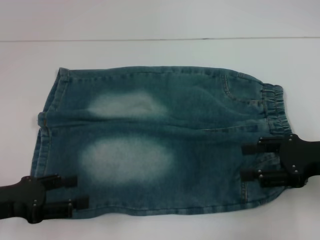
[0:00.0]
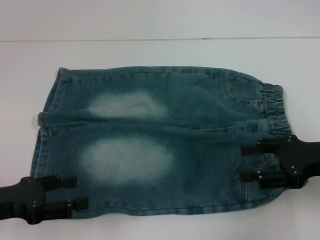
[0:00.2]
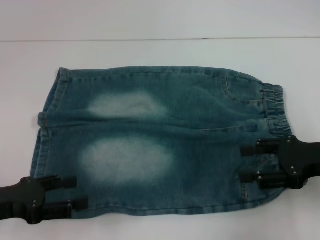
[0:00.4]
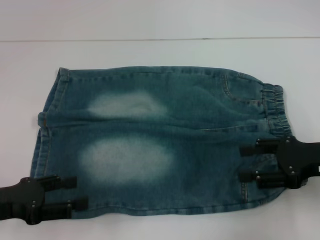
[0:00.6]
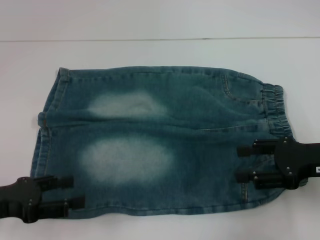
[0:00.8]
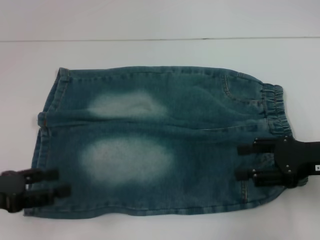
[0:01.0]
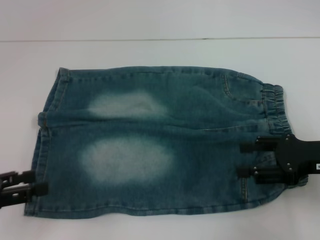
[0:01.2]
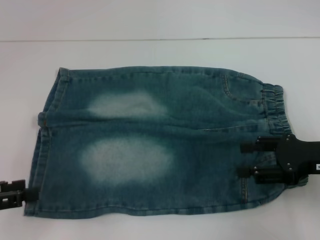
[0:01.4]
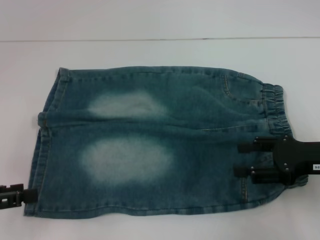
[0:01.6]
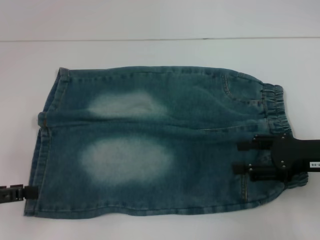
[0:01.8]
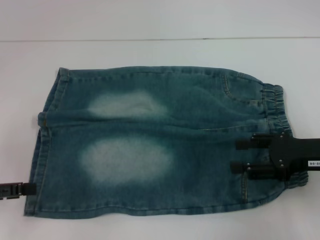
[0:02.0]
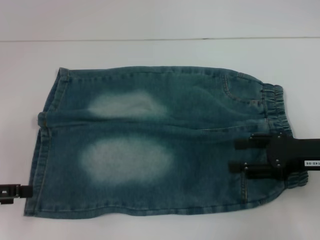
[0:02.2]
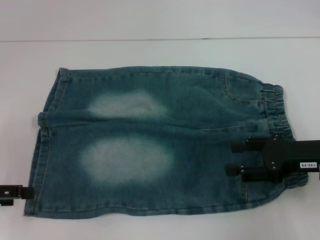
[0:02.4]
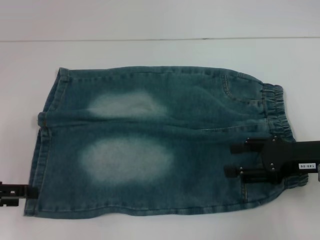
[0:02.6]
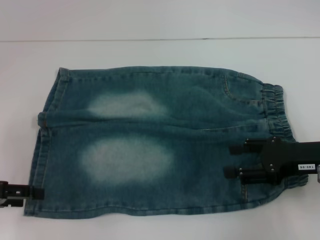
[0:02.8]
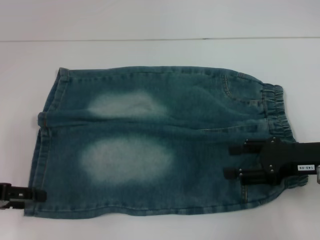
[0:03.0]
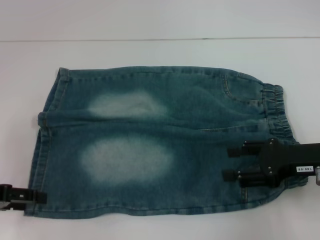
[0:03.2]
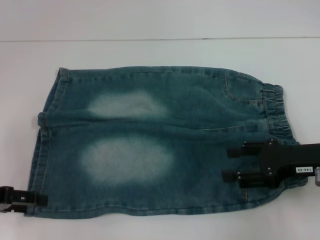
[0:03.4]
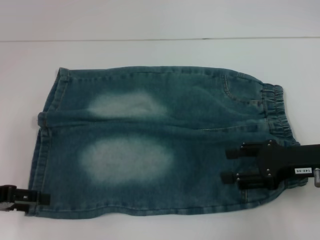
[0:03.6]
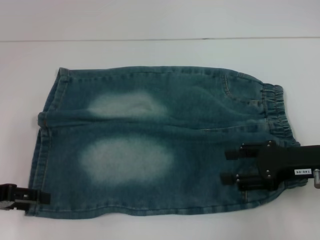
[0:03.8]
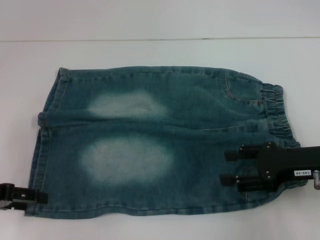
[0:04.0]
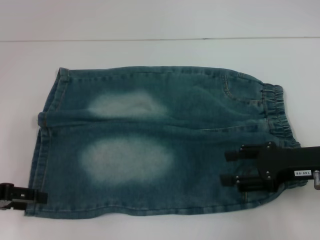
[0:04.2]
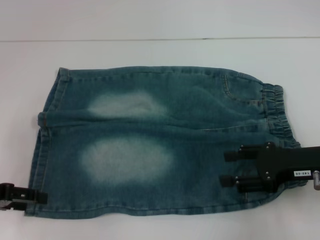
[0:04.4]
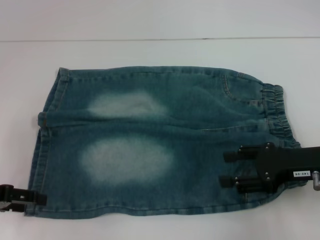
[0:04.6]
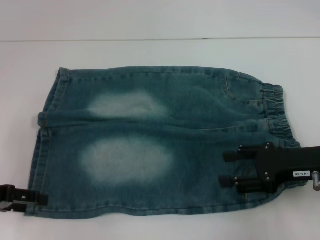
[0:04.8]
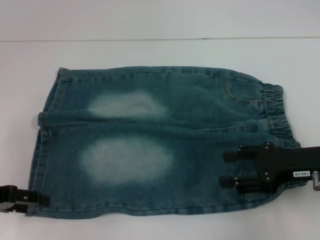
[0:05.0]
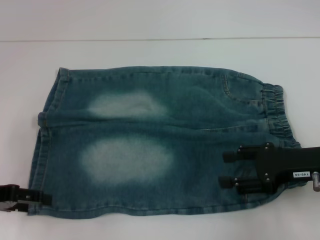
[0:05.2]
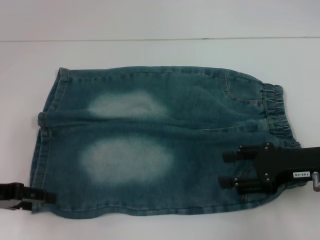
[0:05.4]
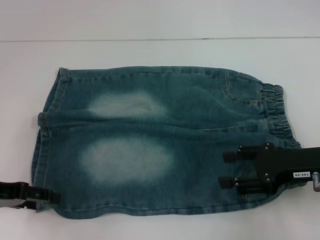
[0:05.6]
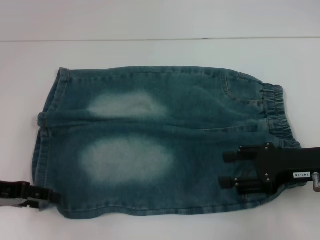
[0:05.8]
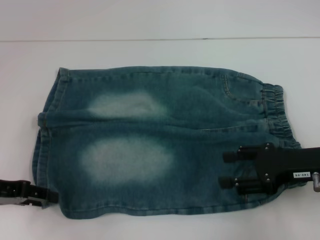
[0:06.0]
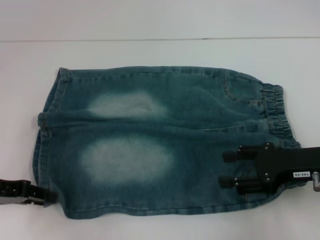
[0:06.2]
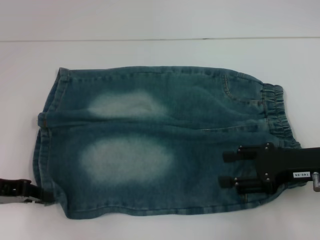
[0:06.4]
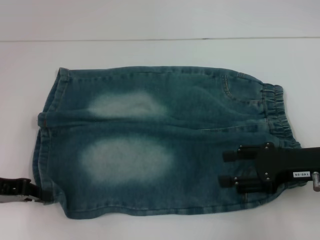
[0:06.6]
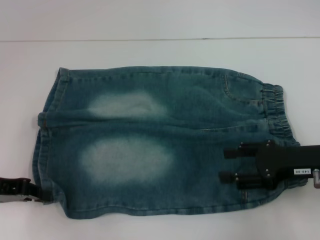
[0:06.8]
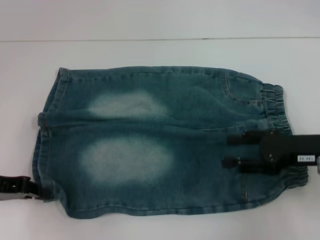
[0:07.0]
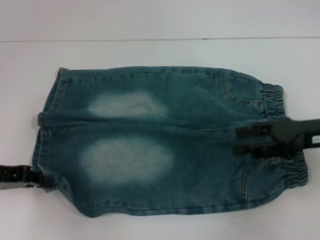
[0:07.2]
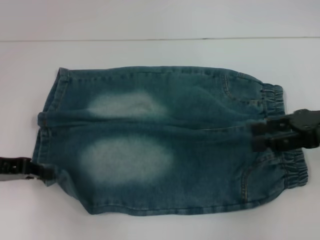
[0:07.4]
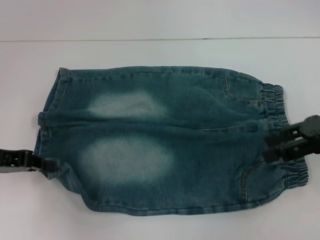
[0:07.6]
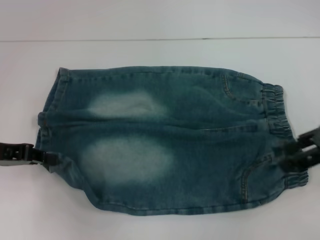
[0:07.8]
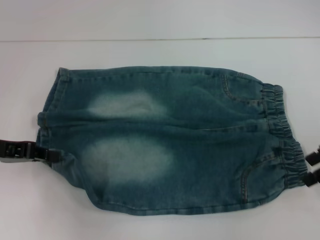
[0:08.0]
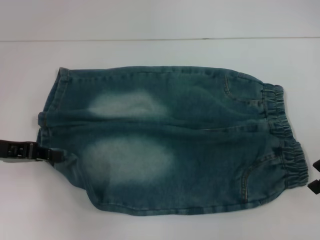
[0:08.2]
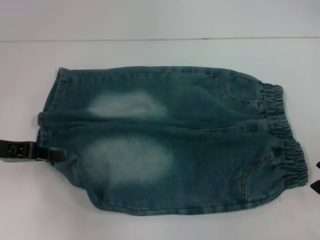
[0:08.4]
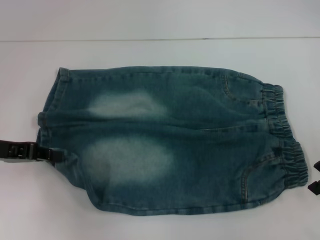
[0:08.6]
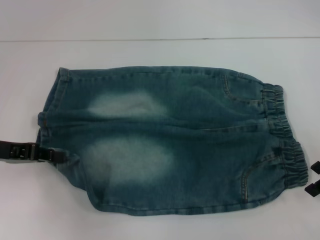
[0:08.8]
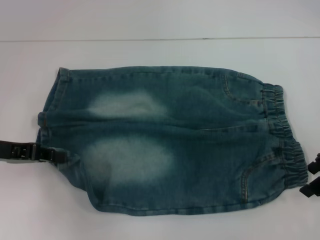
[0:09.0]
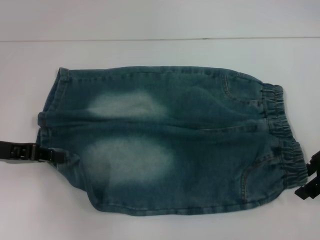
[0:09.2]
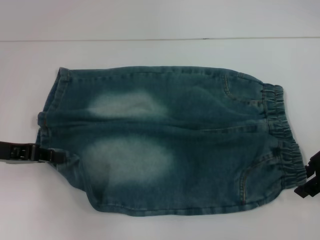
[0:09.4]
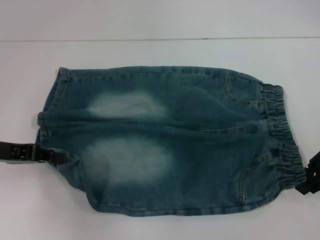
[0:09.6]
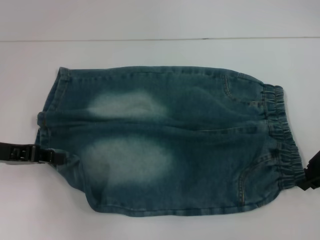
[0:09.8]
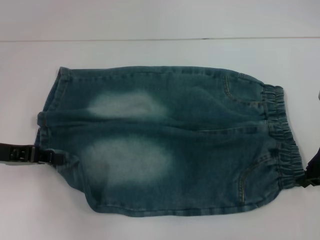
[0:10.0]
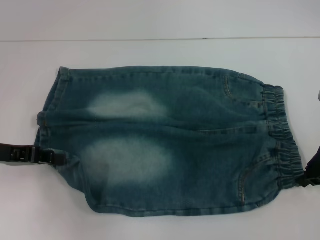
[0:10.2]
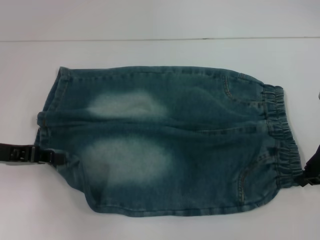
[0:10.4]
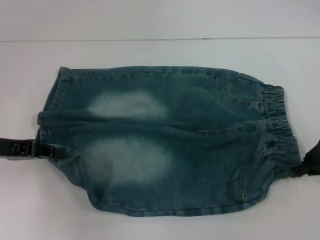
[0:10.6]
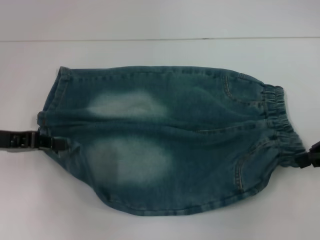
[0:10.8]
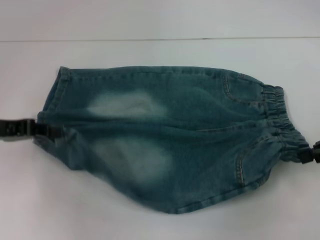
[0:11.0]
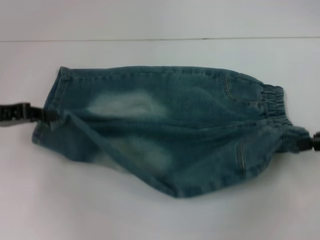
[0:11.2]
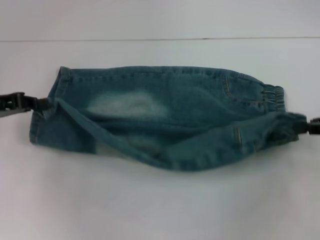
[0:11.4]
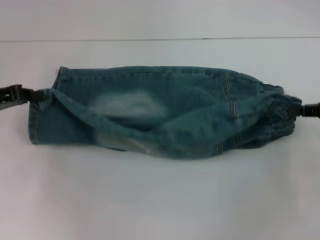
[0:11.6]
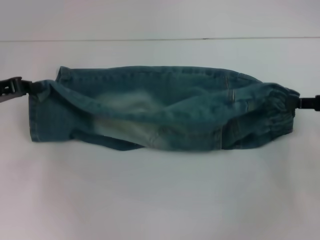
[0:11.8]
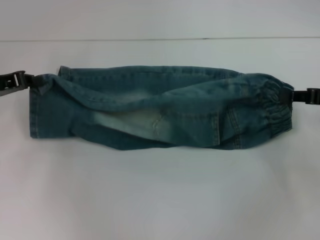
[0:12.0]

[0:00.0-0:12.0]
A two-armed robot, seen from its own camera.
Step, 0:00.0 to 0:05.4: Grab the lower left pant leg with your left hand.
Step, 0:05.6 to 0:09.6: Hold the lower right waistband with your right hand.
0:00.0 to 0:01.6: The left gripper shifts approximately 5 cm to the left.
0:01.6 to 0:03.0: The left gripper goes some 5 cm forward.
0:03.0 to 0:04.4: The two grippers keep their place.
0:04.4 to 0:06.0: The grippers move only a little.
0:06.0 to 0:07.6: The right gripper heads upward, covering approximately 10 cm, while the left gripper closes its fingers.
0:09.0 to 0:10.4: The right gripper closes up.
0:10.4 to 0:12.0: The left gripper heads forward, covering some 5 cm. Meanwhile the right gripper is displaced to the right by approximately 5 cm.

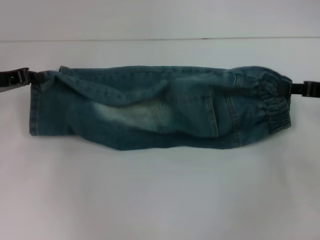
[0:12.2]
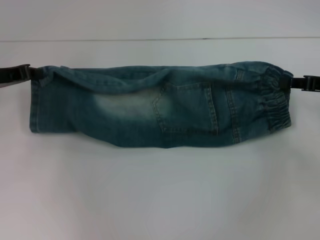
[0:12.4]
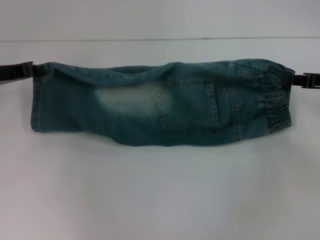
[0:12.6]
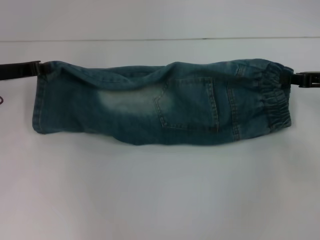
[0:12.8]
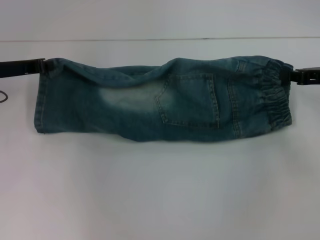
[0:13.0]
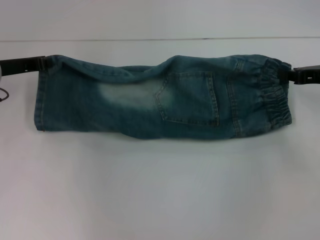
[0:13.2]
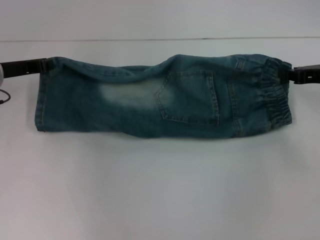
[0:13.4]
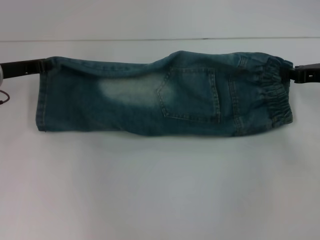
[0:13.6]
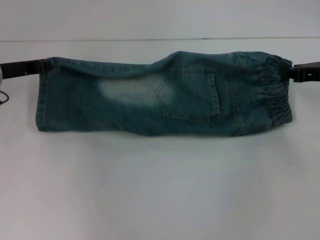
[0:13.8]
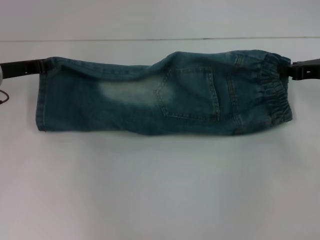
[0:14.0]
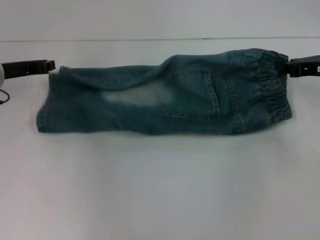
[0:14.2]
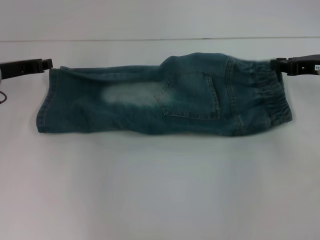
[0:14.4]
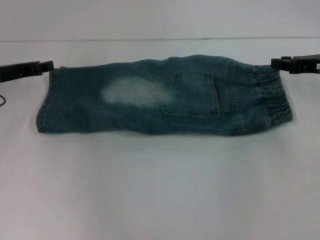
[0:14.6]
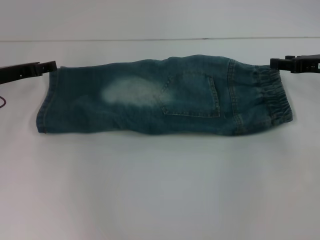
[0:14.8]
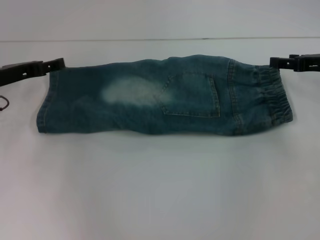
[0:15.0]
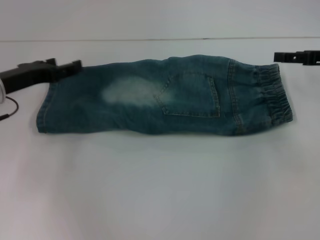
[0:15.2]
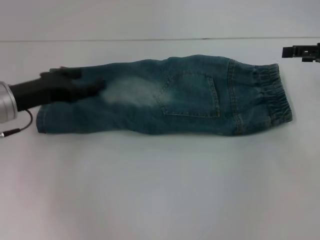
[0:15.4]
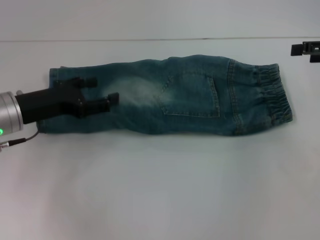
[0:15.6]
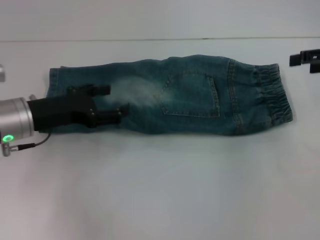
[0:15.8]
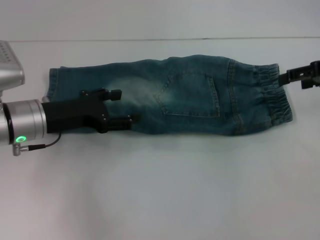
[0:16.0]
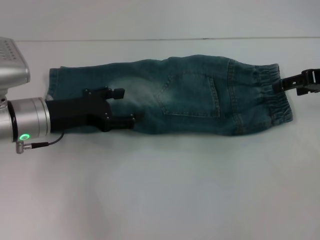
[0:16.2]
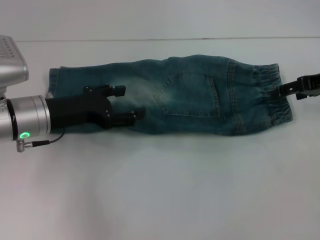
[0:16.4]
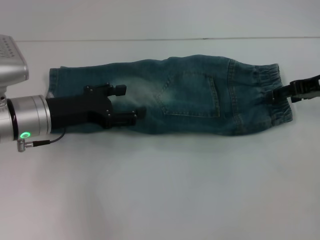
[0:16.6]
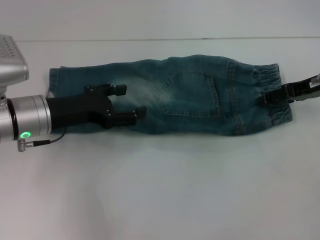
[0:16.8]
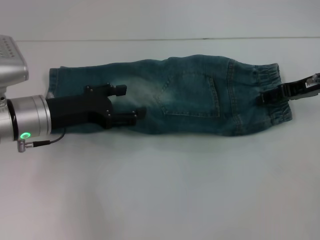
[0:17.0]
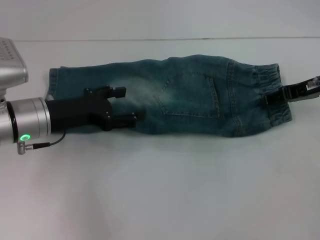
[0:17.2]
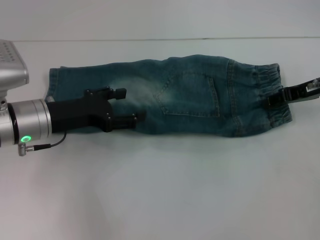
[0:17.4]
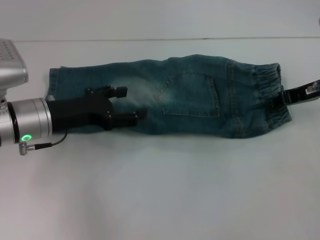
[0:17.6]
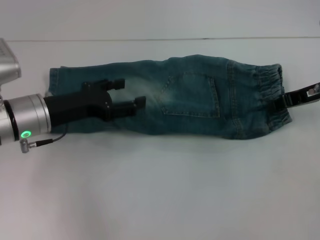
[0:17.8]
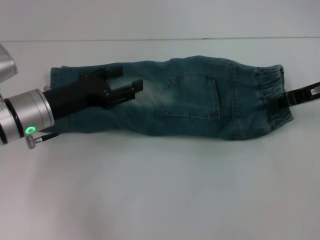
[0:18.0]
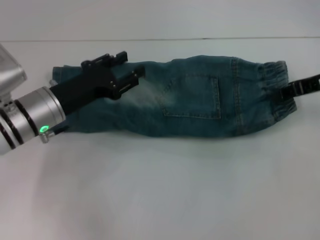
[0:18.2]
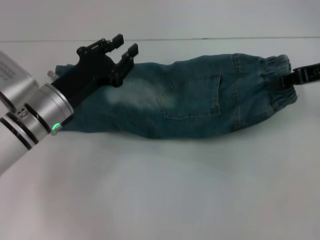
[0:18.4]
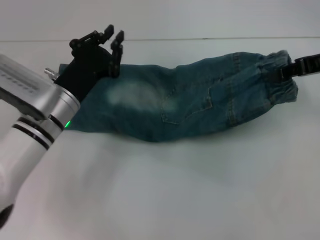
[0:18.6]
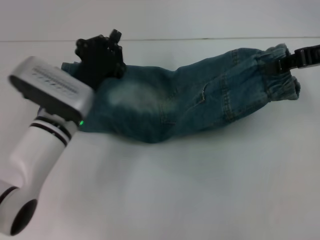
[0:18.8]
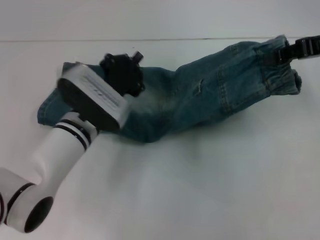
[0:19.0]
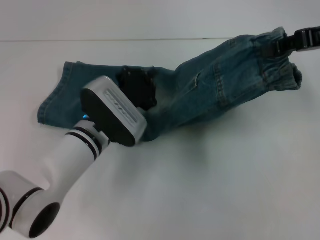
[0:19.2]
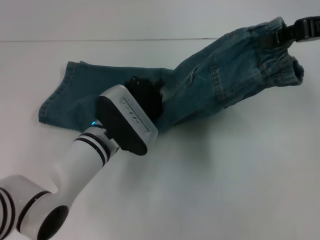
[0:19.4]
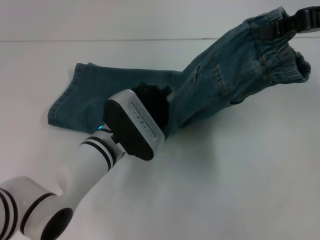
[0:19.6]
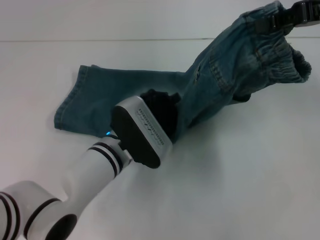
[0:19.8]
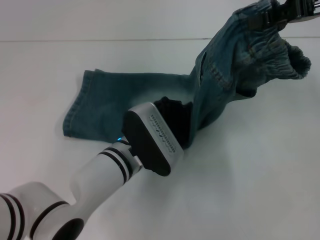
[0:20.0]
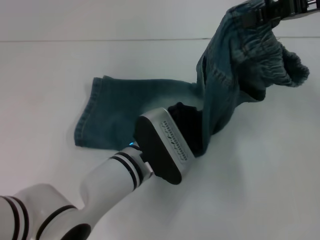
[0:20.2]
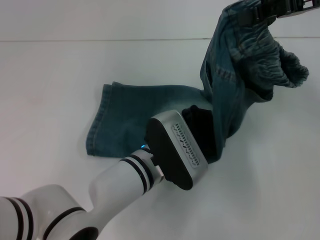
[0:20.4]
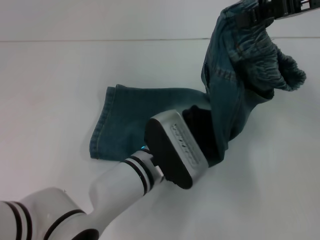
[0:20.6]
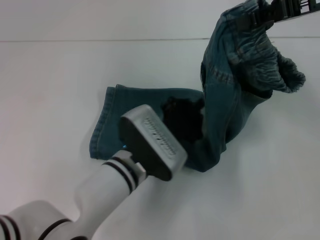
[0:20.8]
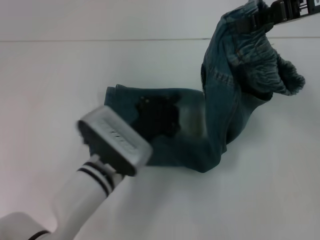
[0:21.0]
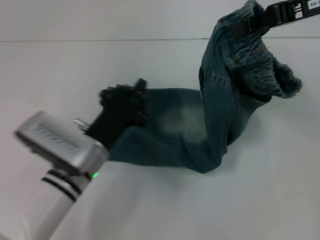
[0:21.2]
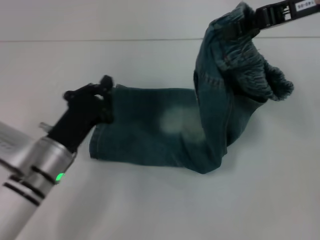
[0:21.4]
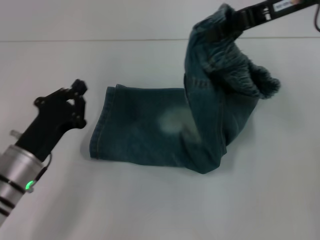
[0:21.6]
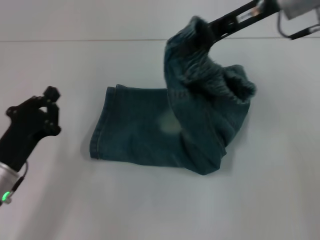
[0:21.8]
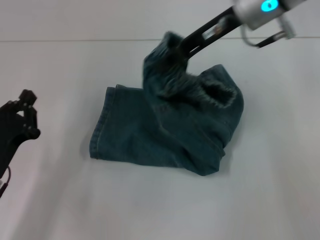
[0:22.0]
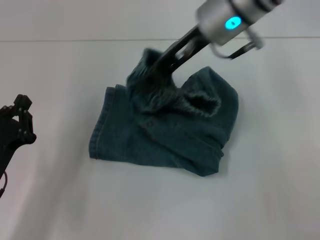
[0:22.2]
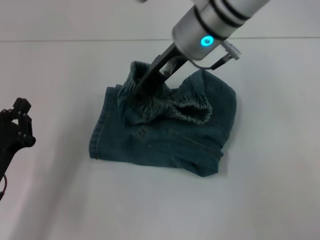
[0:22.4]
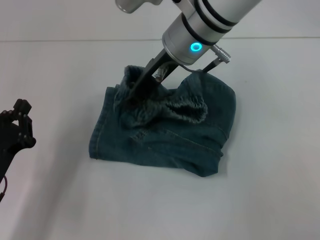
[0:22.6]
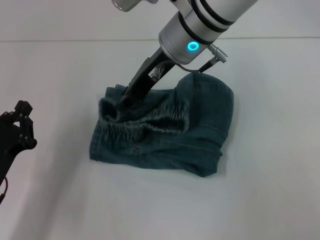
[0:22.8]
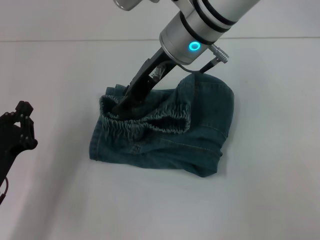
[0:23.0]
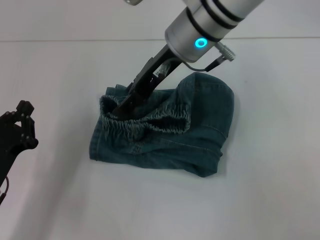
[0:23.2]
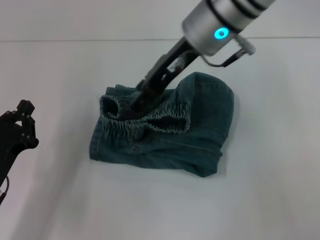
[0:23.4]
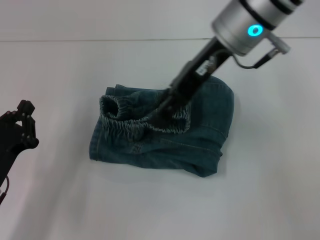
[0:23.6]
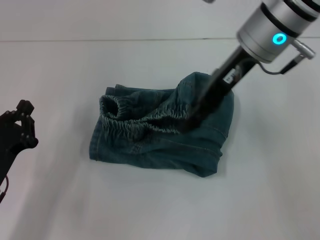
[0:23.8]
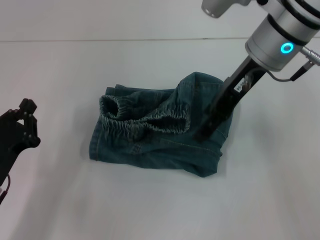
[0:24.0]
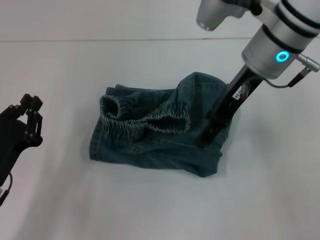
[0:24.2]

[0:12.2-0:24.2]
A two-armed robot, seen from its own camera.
Step, 0:12.2 to 0:15.0: Fold upward with your right hand.
Step, 0:15.4 to 0:17.2: Grab the waistband with your right hand.
Step, 0:17.4 to 0:20.6: Press the middle of the pants with your left hand.
Step, 0:20.8 to 0:23.0: Fold to the left with your right hand.
0:12.2 to 0:13.8: There are only small adjustments of the grippers.
0:13.8 to 0:15.2: The left gripper opens up; the right gripper opens.
0:15.2 to 0:16.6: The left gripper moves to the right, approximately 5 cm.
0:16.6 to 0:18.2: The right gripper closes its fingers.
0:18.2 to 0:19.8: The right gripper heads upward, covering roughly 10 cm, while the left gripper moves to the right and downward, roughly 15 cm, and closes its fingers.
0:19.8 to 0:21.2: The left gripper goes roughly 5 cm to the left.
0:21.2 to 0:22.6: The left gripper is displaced to the left and backward by roughly 15 cm; the right gripper heads to the left, covering approximately 20 cm.
0:22.6 to 0:24.2: The right gripper goes about 10 cm to the right, and opens up.
